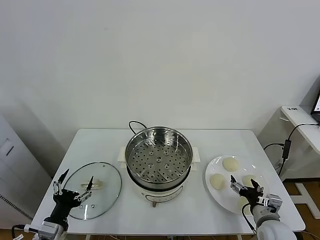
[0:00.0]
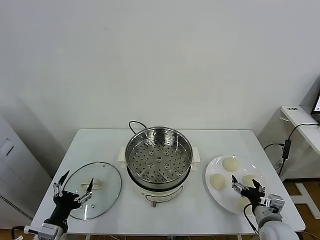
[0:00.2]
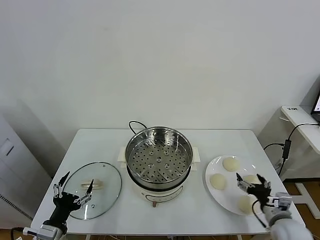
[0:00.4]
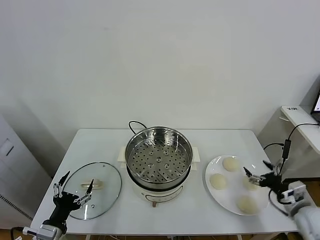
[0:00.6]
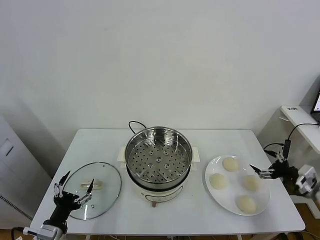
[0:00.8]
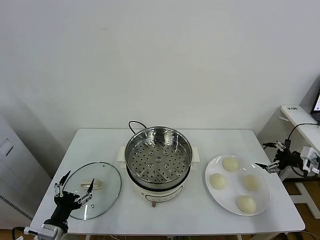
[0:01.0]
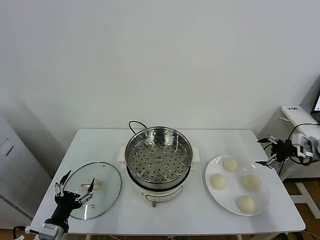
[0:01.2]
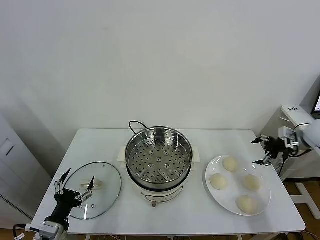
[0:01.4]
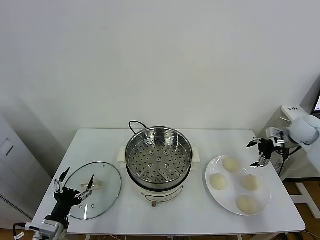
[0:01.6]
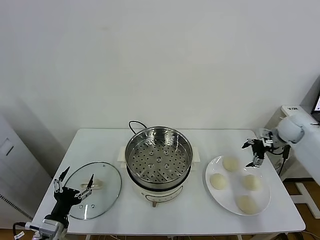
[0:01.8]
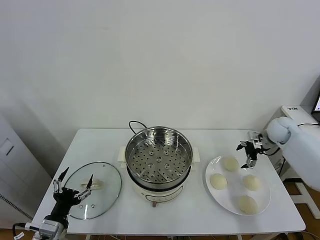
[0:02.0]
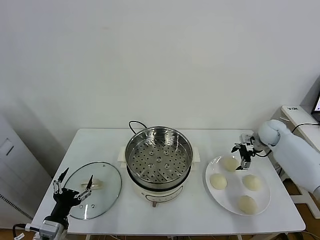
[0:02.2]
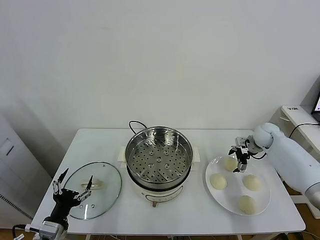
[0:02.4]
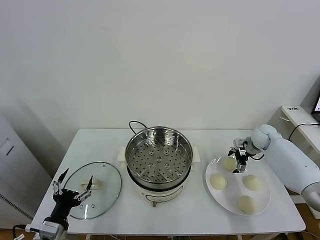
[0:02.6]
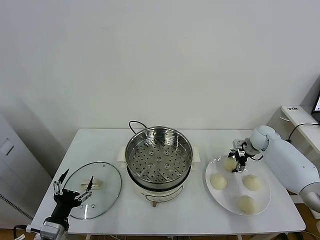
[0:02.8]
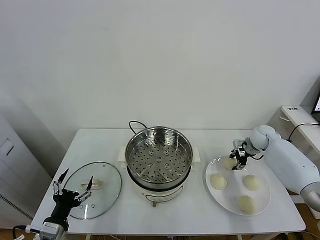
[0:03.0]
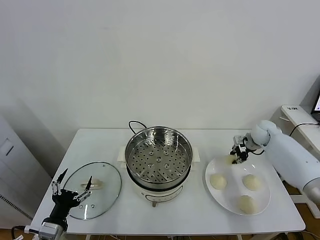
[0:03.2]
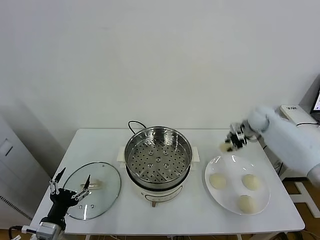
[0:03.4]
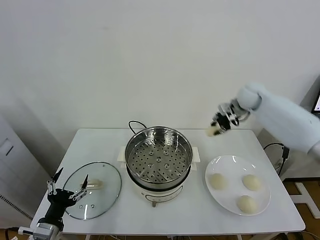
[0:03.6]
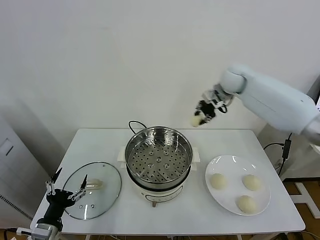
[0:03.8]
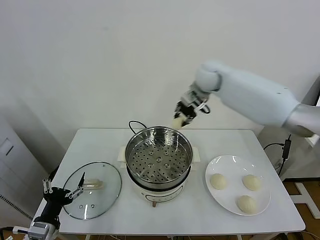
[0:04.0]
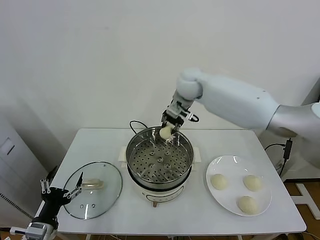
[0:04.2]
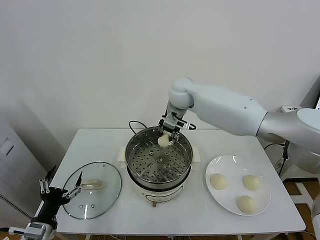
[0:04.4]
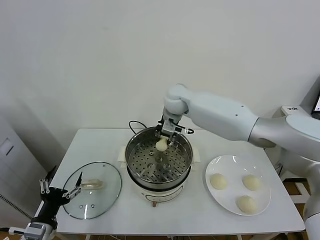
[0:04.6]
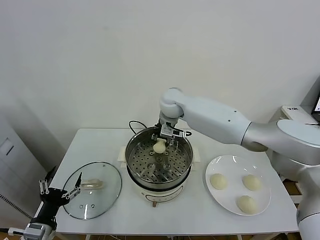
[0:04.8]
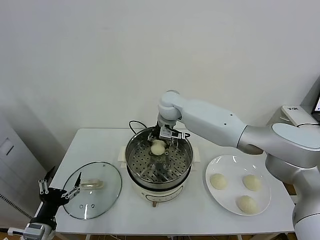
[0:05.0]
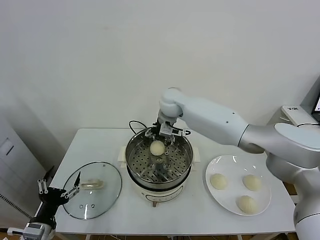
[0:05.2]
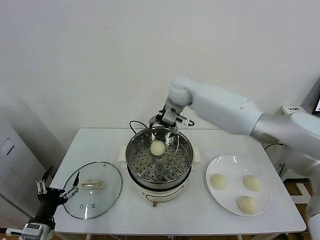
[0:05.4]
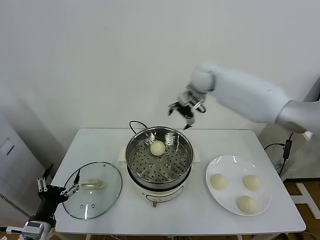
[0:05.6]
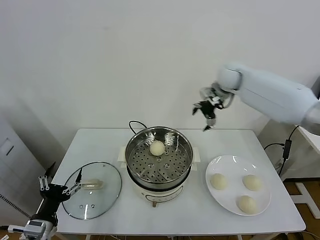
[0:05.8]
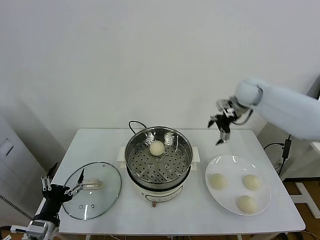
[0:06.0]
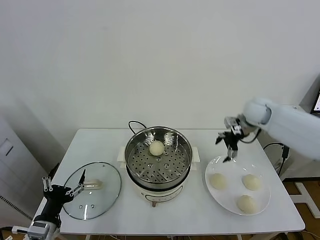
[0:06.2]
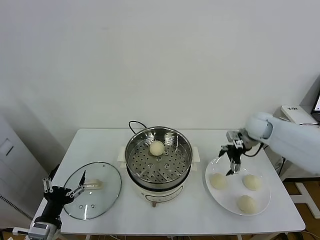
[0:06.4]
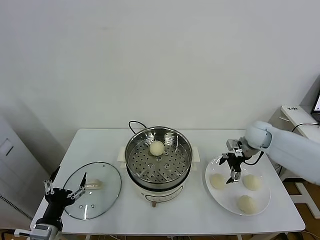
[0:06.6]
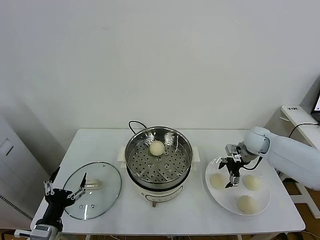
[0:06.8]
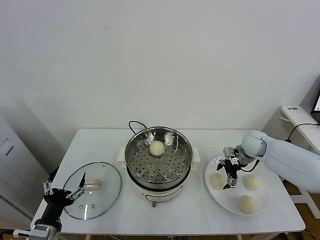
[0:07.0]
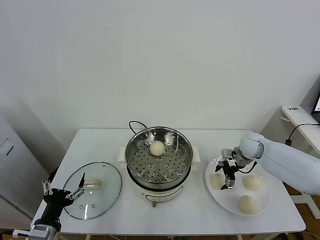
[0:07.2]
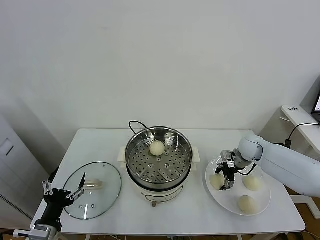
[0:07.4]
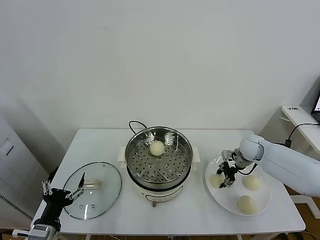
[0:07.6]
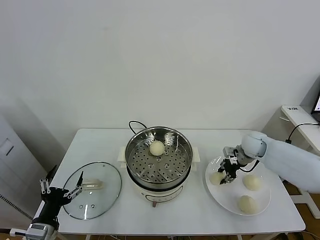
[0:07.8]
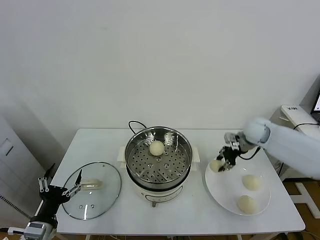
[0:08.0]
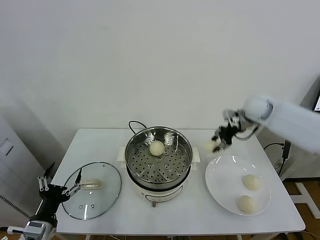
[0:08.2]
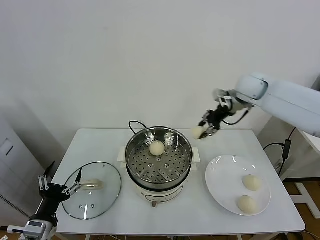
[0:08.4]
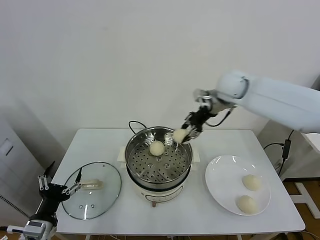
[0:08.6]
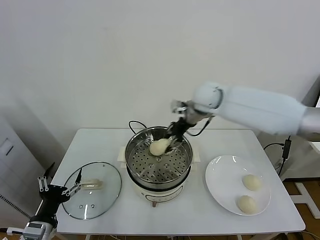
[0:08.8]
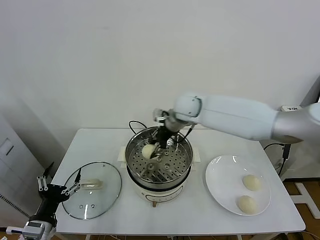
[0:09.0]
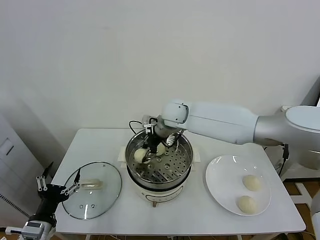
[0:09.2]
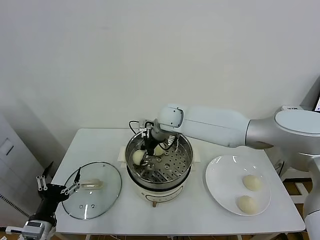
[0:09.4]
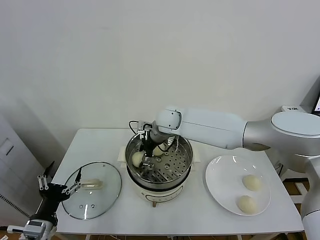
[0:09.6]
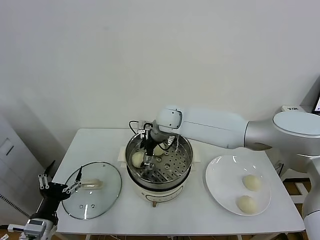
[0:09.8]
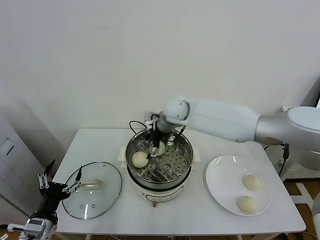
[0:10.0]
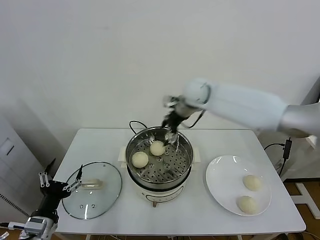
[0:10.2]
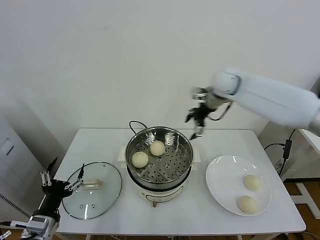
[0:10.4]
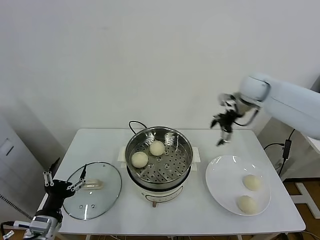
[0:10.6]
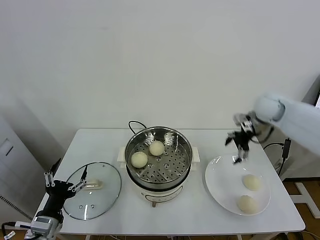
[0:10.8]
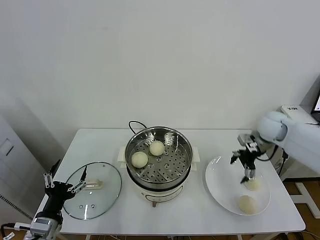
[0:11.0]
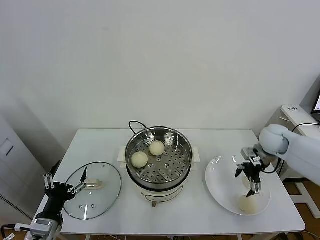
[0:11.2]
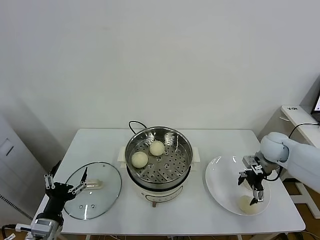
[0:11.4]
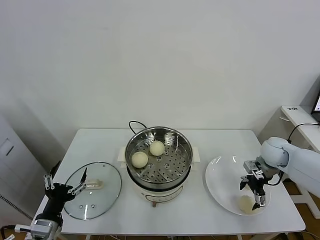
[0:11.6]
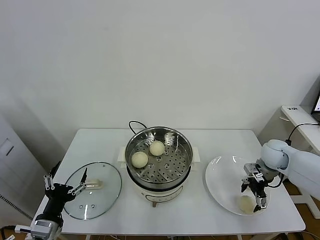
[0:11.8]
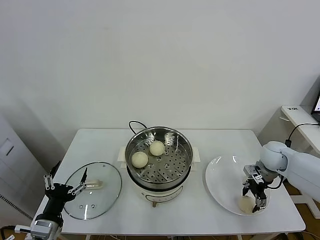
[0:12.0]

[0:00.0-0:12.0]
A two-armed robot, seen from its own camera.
Task of the whole recording: take steamed baozi put them in steamer.
Step, 0:00.0 to 0:02.8: Grasp the baozi in the plate with right gripper.
Step, 0:03.0 to 0:05.2: Place the baozi on the steamer with right gripper.
Step, 0:05.4 to 0:07.4: Grasp the baozi in the plate with right gripper.
Step, 0:07.6 to 0:09.8: Place the baozi on the steamer with right gripper.
0:01.6 to 0:03.0: The right gripper is displaced downward and to the left by roughly 10 cm, and closes its fingers.
0:03.0 to 0:04.4: The right gripper goes some 40 cm to the left and upward.
0:04.4 to 0:06.0: The right gripper heads to the right, covering roughly 25 cm, and opens.
0:06.0 to 0:07.6: The right gripper travels downward by some 15 cm, and closes up.
0:07.6 to 0:09.0: The right gripper goes some 35 cm to the left and upward.
0:09.0 to 0:10.4: The right gripper heads to the right and upward, covering approximately 20 cm, and opens.
0:10.4 to 0:12.0: The right gripper is displaced downward, to the right and backward by some 30 cm, and closes up.

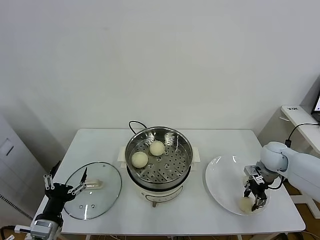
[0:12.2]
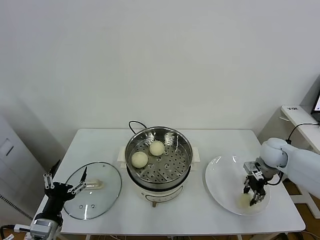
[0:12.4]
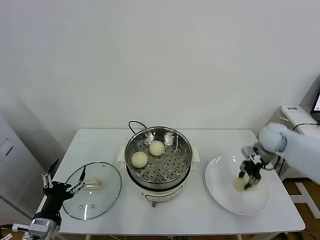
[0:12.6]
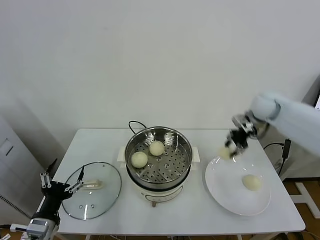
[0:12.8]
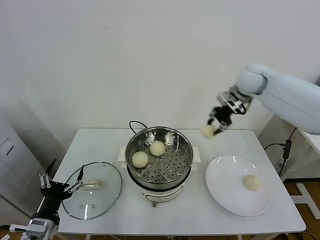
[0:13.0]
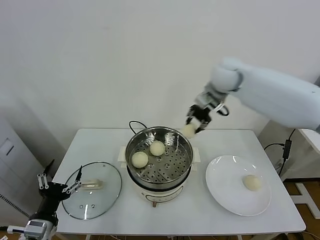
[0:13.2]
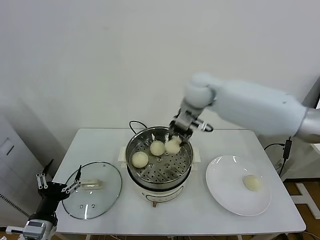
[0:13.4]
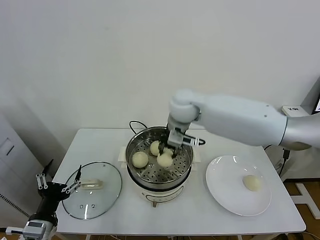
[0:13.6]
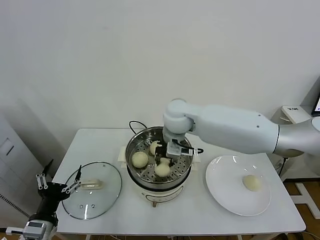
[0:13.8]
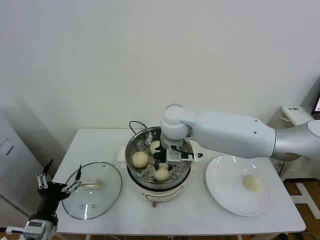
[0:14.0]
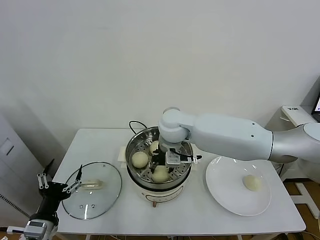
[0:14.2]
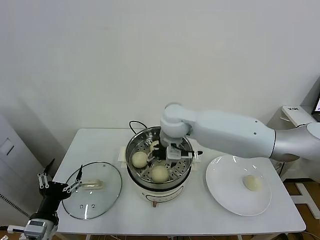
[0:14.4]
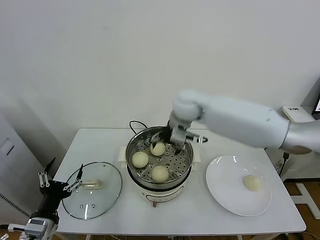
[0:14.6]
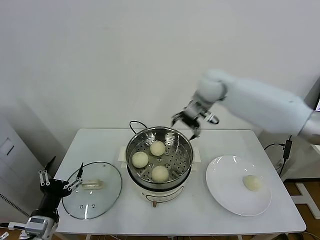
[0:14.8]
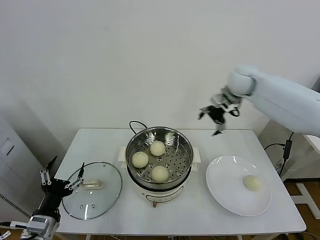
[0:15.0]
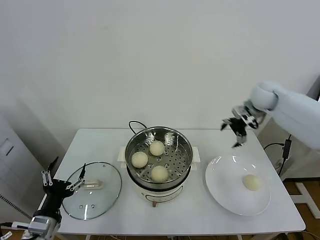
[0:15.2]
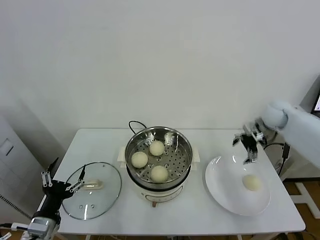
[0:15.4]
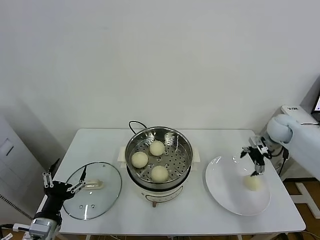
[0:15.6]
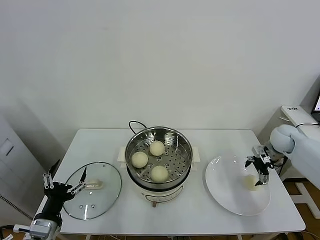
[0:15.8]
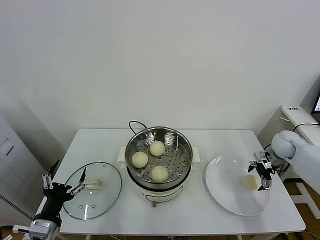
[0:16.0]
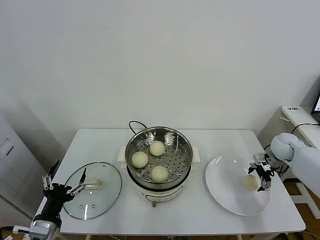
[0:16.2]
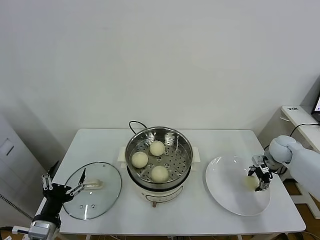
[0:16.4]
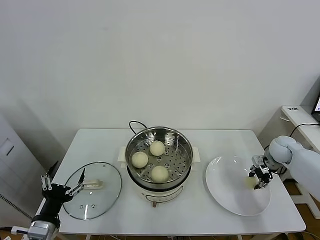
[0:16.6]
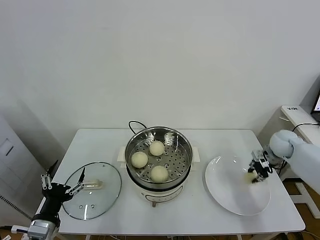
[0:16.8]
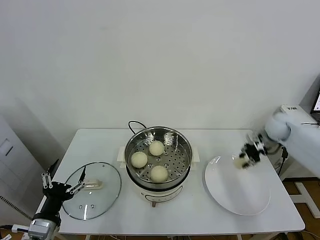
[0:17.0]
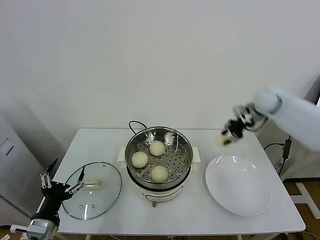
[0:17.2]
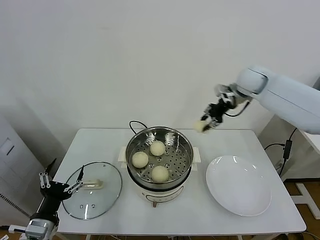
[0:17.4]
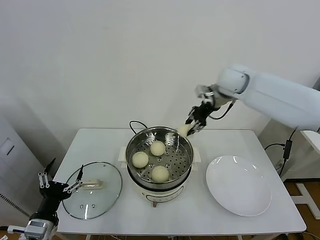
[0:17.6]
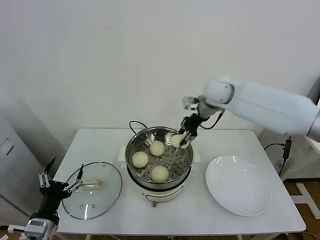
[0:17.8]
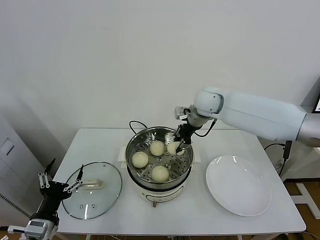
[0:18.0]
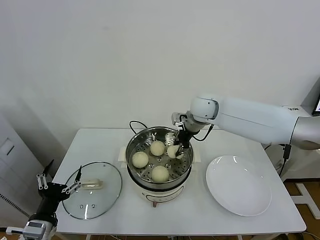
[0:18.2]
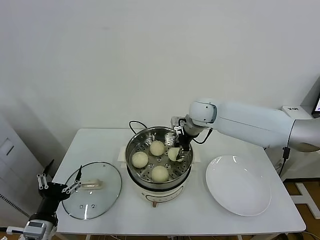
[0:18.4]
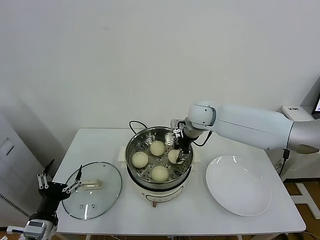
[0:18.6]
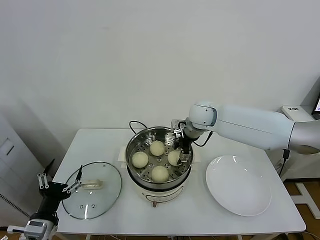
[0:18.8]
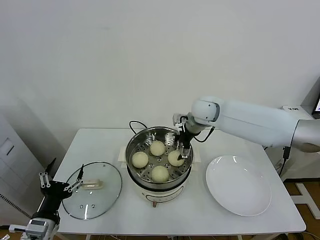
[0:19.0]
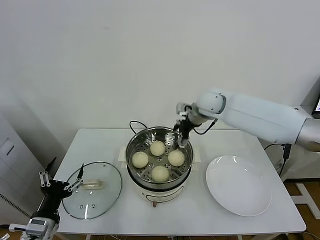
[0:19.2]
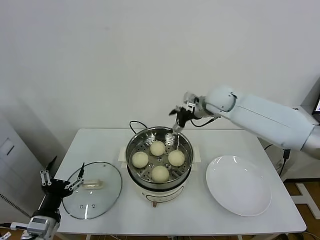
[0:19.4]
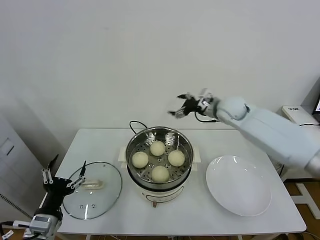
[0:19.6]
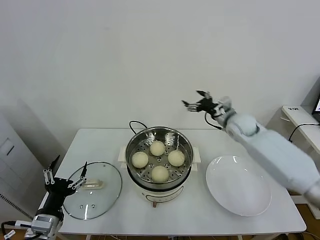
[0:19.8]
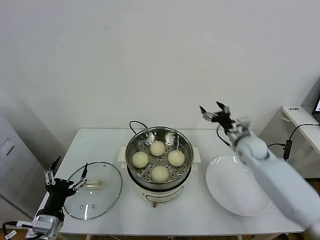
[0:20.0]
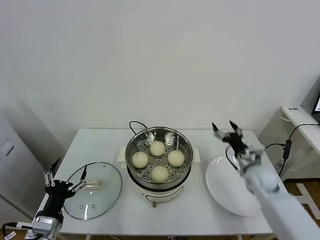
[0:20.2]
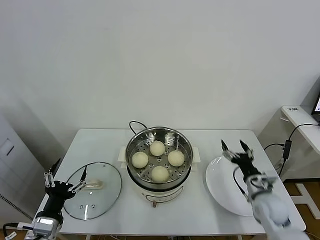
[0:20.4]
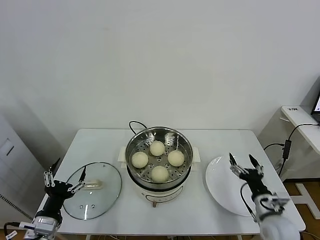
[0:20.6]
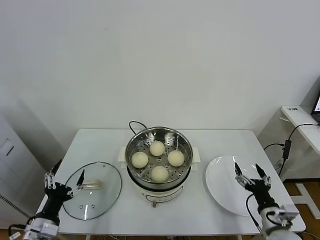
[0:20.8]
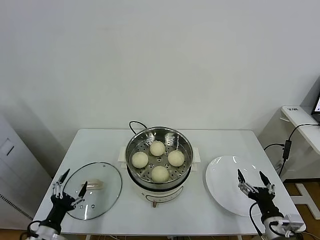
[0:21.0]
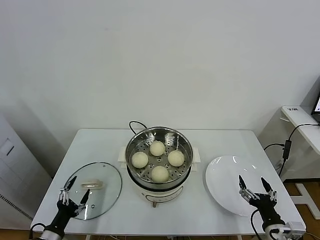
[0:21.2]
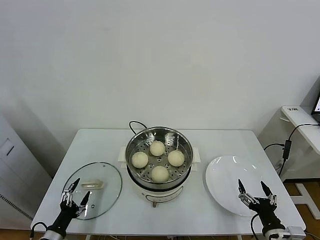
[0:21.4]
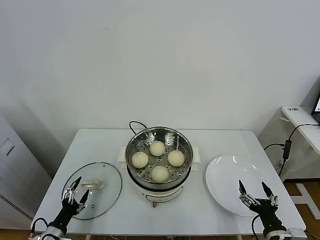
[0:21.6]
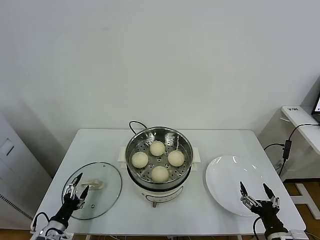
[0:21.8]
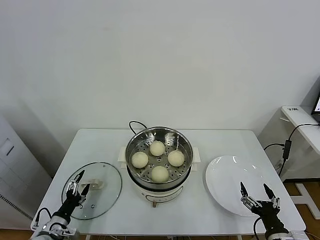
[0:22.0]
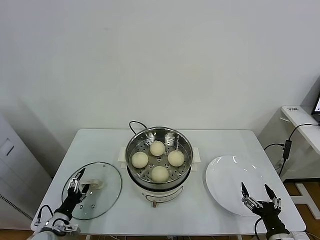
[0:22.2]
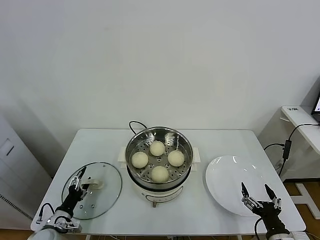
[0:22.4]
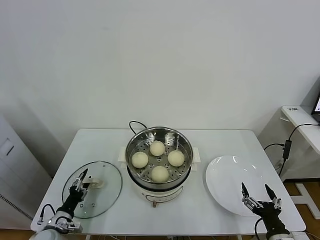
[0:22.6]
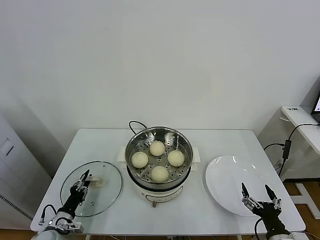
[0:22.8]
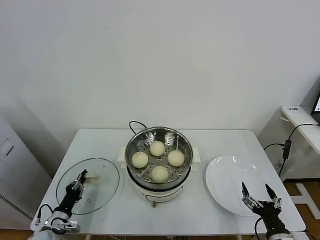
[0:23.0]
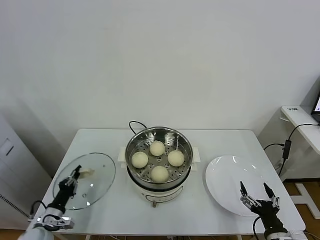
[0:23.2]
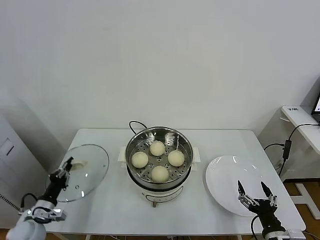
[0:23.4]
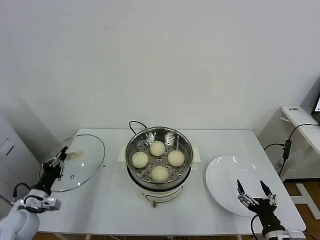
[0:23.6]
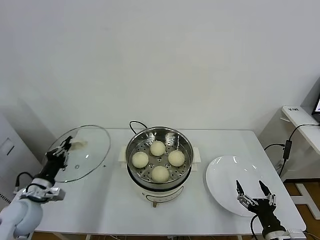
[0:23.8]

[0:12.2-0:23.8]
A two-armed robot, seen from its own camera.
Task of the whole recording: take steamed baozi put them in steamer.
Step, 0:12.4 to 0:14.4: Place the baozi on the steamer with right gripper.
Step, 0:14.6 to 0:16.4: Grasp the baozi in the plate with right gripper.
Step, 0:16.6 to 0:19.0: Place the baozi on the steamer with right gripper.
Step, 0:19.2 to 0:23.2: Grasp the pot lid with left gripper.
0:12.2 to 0:13.6: The right gripper goes approximately 40 cm to the left and upward.
0:13.6 to 0:15.0: The right gripper moves to the right, some 20 cm, and opens up.
0:15.0 to 0:16.6: The right gripper moves downward and to the right, some 30 cm, and closes its fingers.
0:16.6 to 0:18.0: The right gripper shifts approximately 35 cm to the left and upward.
0:18.0 to 0:19.4: The right gripper opens up.
0:19.4 to 0:21.0: The right gripper goes roughly 50 cm backward, downward and to the right. Meanwhile the left gripper moves downward, approximately 10 cm.
0:21.0 to 0:22.4: The left gripper shifts some 10 cm downward and forward.
0:22.4 to 0:23.8: The left gripper travels upward by approximately 15 cm, and closes its fingers.
